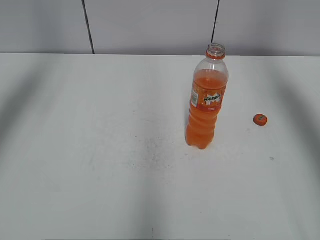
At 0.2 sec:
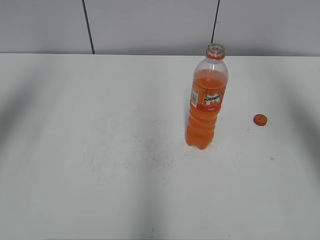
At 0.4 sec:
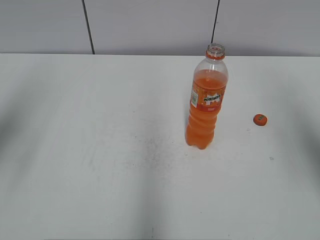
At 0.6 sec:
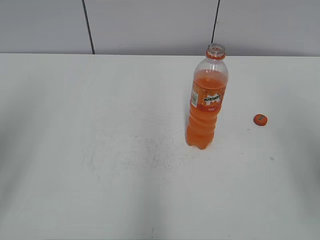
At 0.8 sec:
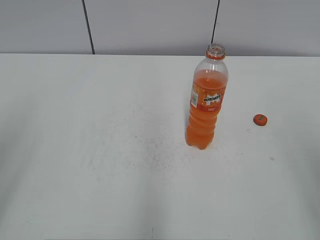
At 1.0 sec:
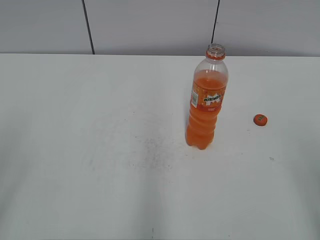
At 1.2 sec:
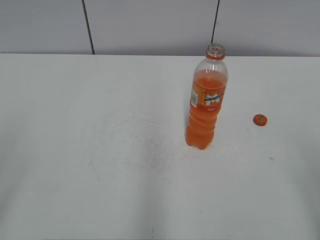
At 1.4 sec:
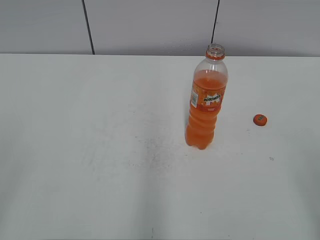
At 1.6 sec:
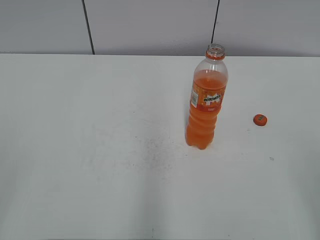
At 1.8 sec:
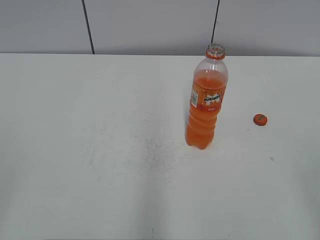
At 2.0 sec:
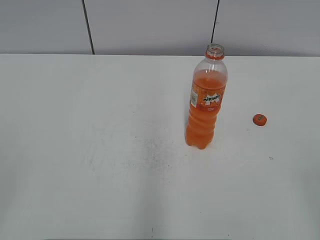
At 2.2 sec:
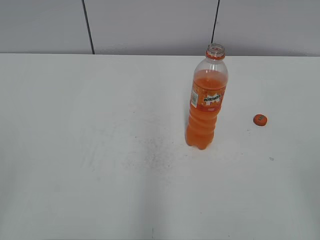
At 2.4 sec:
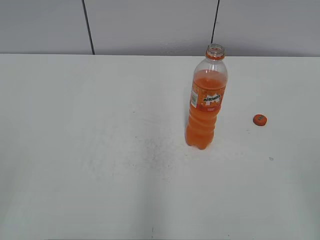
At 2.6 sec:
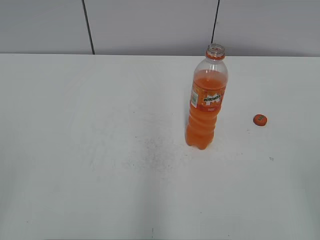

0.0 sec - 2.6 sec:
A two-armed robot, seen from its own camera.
0.0 sec - 1.2 sec: The left gripper is displaced backward by about 30 cm, while the right gripper goes approximately 35 cm backward and downward.

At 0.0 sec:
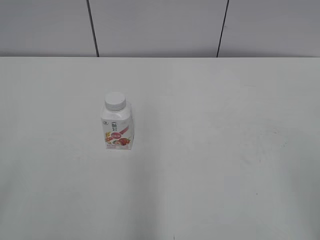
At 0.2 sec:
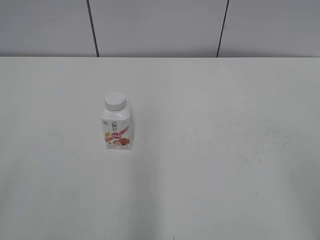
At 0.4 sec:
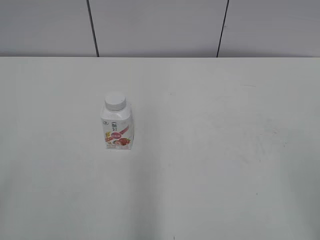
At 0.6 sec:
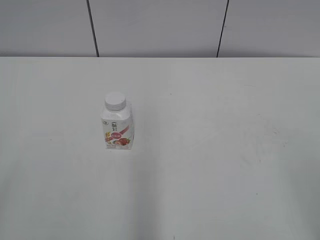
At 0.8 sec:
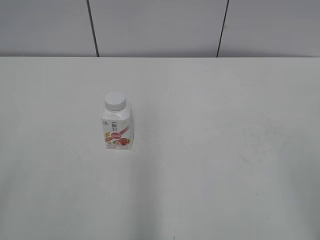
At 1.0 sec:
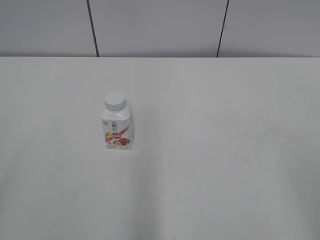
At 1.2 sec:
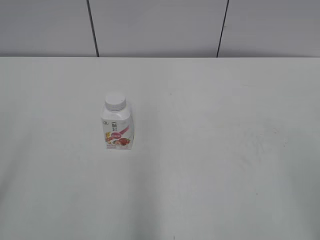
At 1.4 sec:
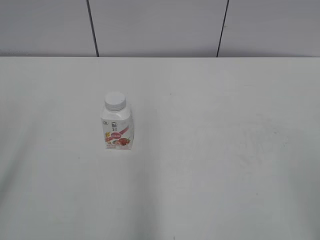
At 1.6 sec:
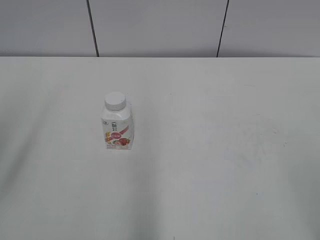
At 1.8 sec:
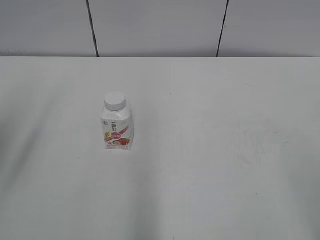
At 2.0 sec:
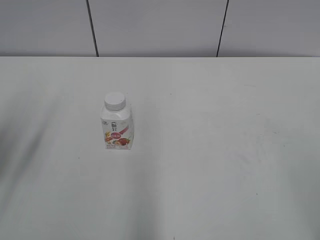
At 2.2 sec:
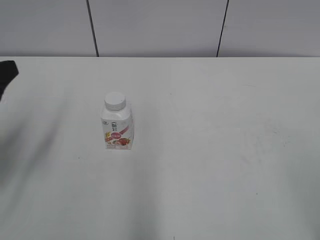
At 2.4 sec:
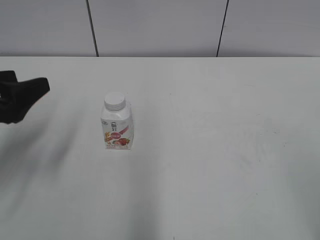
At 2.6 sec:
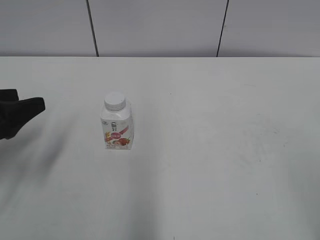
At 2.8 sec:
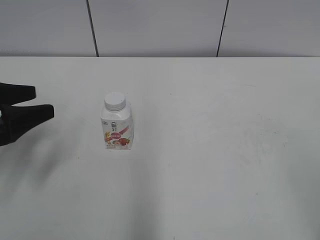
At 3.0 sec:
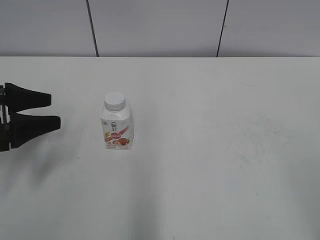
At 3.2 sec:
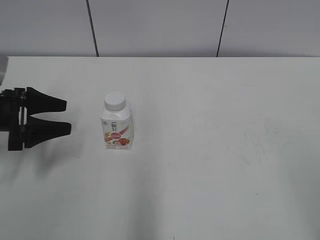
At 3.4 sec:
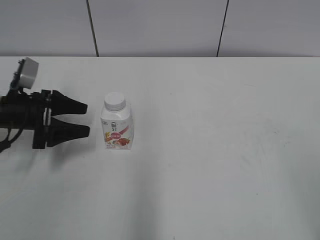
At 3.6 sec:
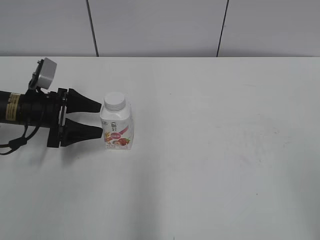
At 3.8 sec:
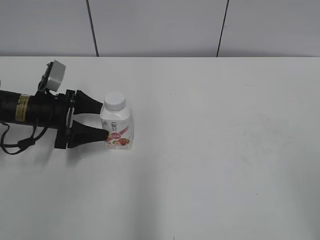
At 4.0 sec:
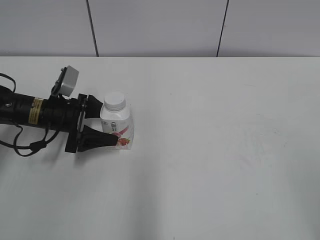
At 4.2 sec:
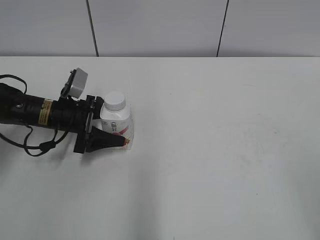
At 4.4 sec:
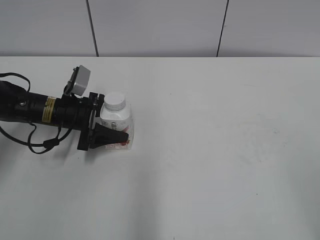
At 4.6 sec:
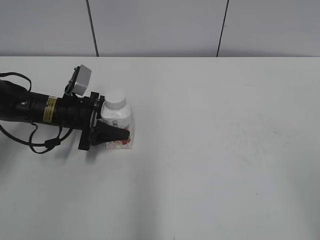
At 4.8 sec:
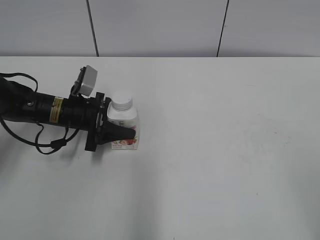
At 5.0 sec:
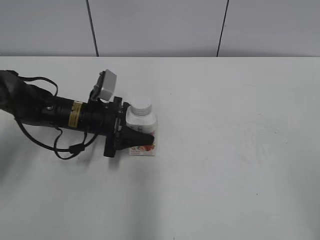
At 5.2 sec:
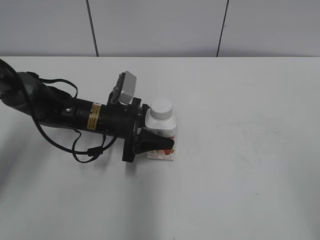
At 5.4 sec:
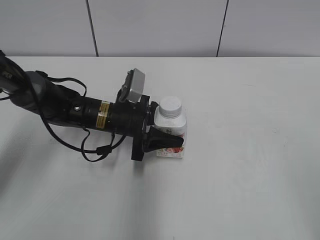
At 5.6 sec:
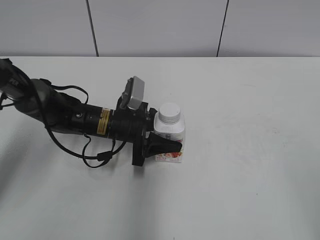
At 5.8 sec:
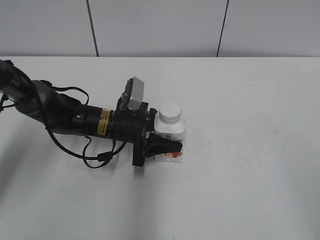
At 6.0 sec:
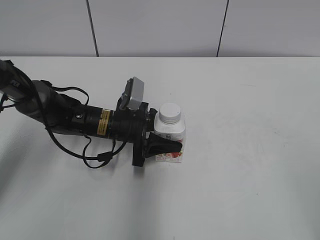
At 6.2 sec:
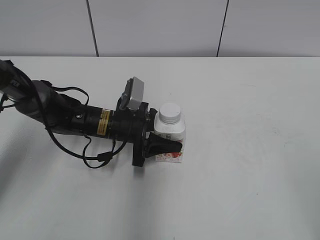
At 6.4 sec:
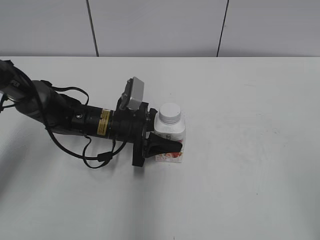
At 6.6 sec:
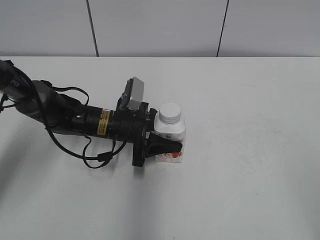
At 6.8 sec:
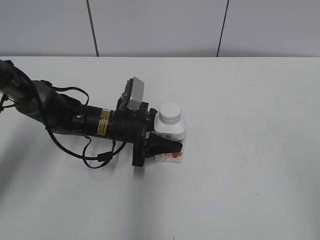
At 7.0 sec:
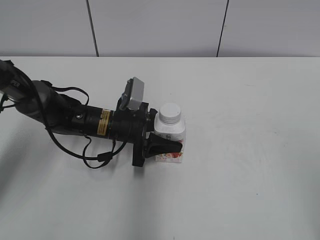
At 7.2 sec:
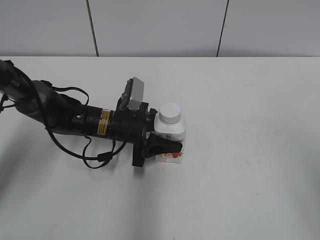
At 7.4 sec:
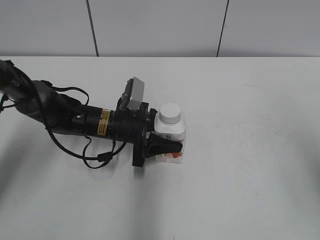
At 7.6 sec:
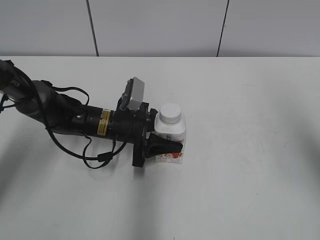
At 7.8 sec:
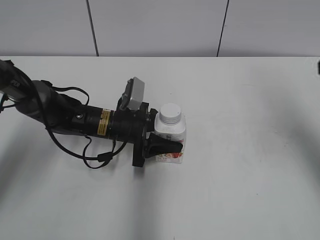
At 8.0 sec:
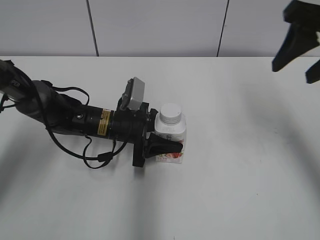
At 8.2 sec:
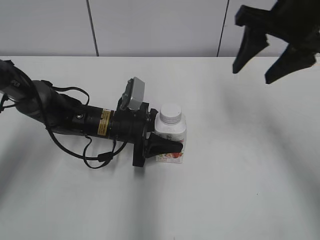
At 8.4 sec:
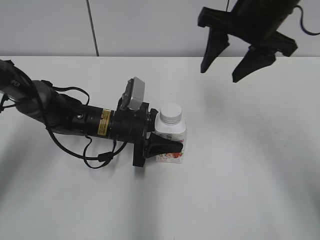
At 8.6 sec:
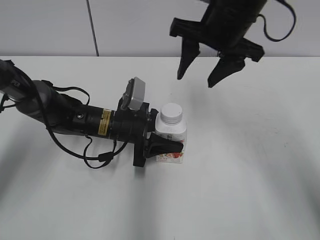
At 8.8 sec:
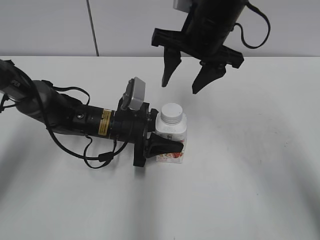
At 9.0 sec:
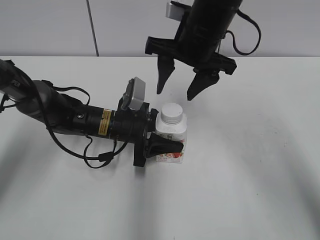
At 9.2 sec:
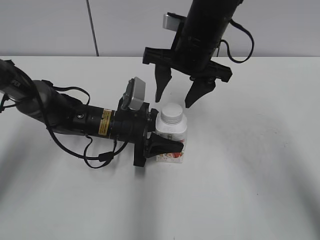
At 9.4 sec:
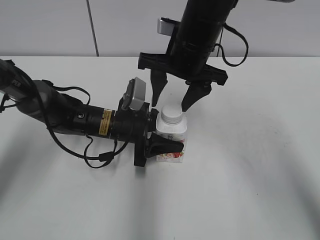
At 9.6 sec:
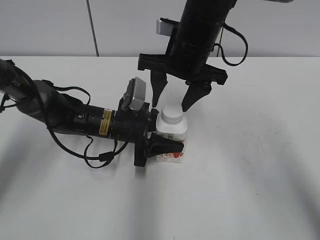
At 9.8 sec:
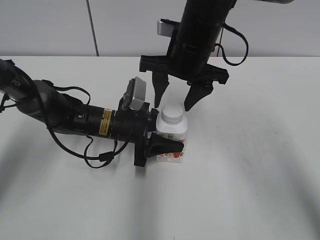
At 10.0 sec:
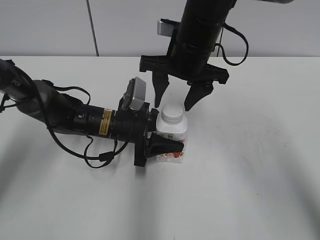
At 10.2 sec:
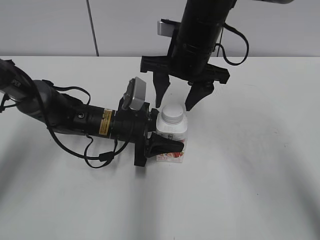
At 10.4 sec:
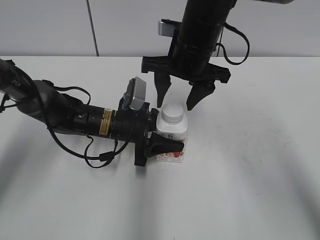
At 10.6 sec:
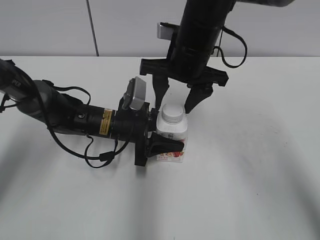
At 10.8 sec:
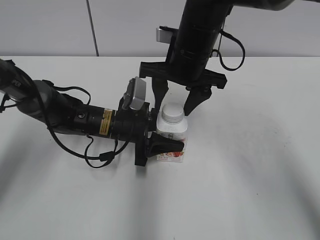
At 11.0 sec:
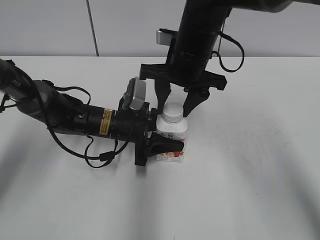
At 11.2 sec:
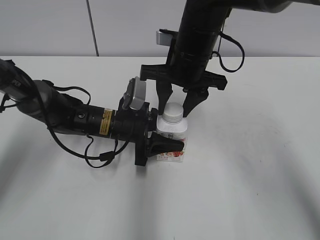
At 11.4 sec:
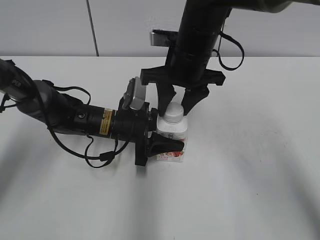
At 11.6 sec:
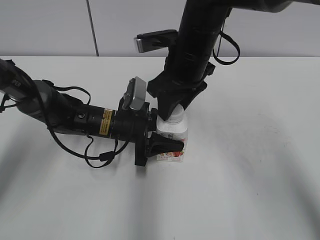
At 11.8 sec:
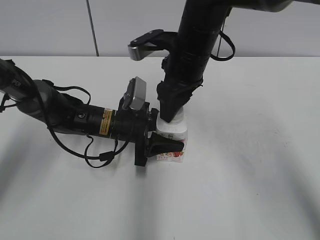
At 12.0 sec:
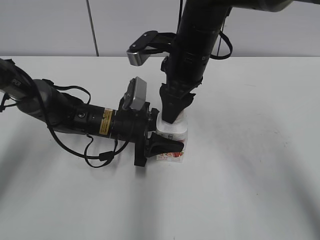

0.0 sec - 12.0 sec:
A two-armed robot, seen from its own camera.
Step, 0.0 sec - 4.6 sec: Grab the Yili Changqing with the left hand.
Step, 4.8 sec - 6.6 sec: Move the Yili Changqing from left to right.
1.6 sec - 3.0 sec: The left gripper is displaced downward and forward by some 25 cm.
3.0 sec - 4.4 sec: The left gripper shifts about 20 cm forward, downward and to the right.
4.4 sec - 6.0 sec: The left gripper travels to the right by approximately 10 cm, and closes.
6.0 sec - 7.6 sec: The right gripper goes some 20 cm forward.
7.6 sec - 9.0 sec: The right gripper heads to the left, forward and downward, covering approximately 30 cm.
9.0 sec - 10.4 sec: The grippers make only small movements.
10.4 sec - 12.0 sec: The right gripper closes its fingers.

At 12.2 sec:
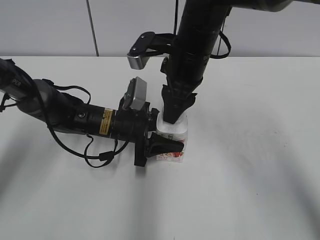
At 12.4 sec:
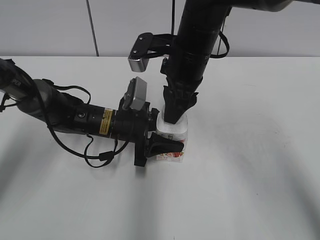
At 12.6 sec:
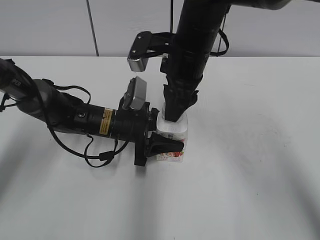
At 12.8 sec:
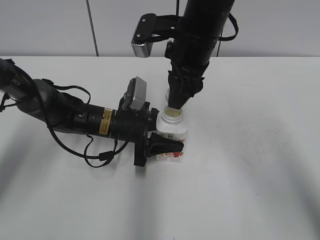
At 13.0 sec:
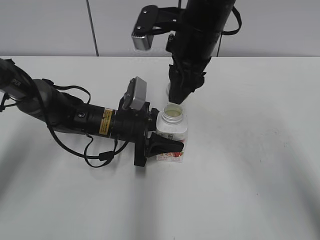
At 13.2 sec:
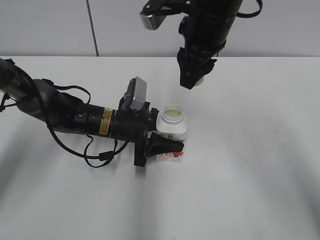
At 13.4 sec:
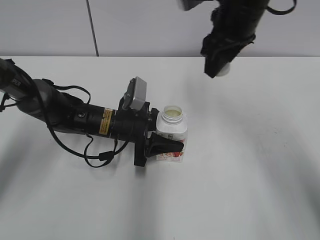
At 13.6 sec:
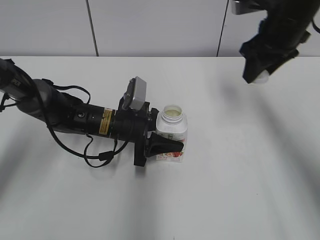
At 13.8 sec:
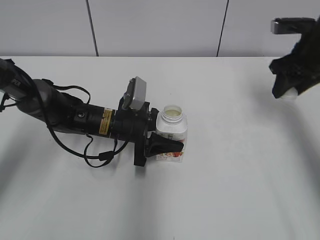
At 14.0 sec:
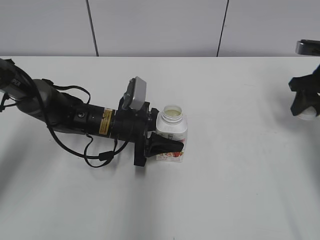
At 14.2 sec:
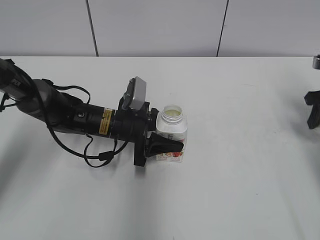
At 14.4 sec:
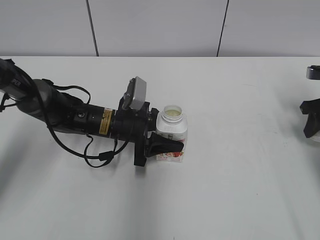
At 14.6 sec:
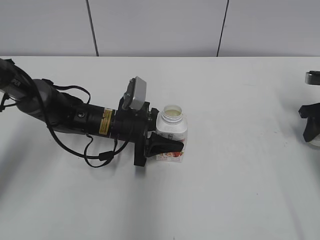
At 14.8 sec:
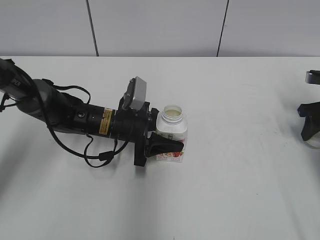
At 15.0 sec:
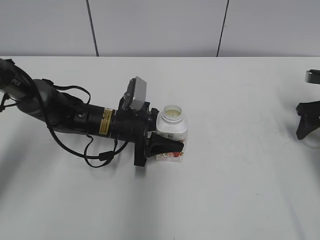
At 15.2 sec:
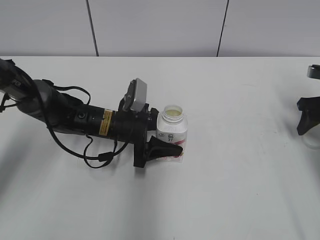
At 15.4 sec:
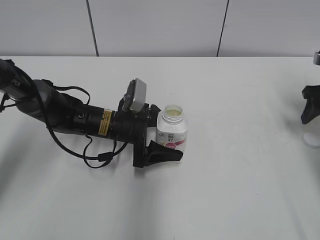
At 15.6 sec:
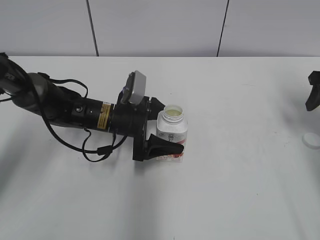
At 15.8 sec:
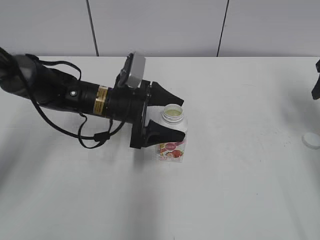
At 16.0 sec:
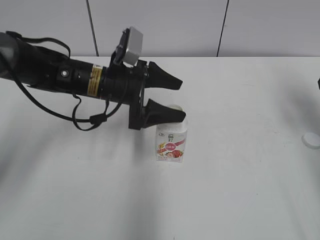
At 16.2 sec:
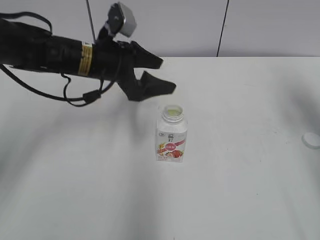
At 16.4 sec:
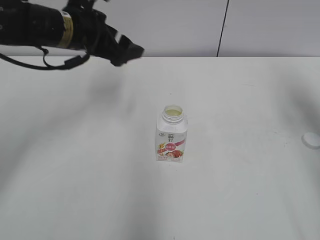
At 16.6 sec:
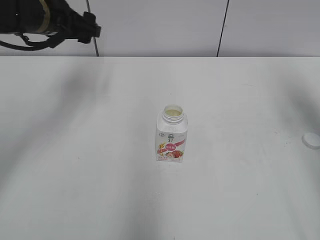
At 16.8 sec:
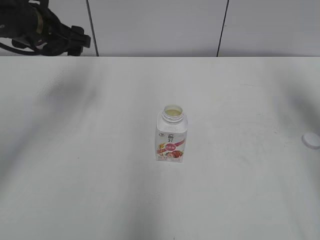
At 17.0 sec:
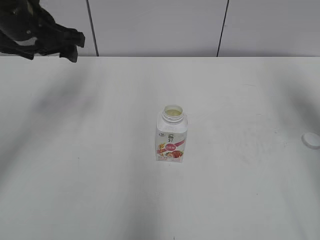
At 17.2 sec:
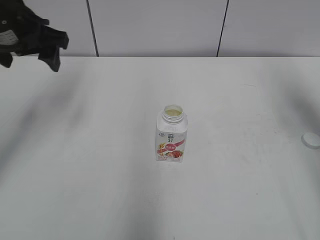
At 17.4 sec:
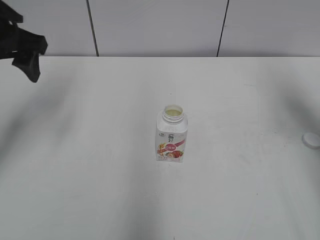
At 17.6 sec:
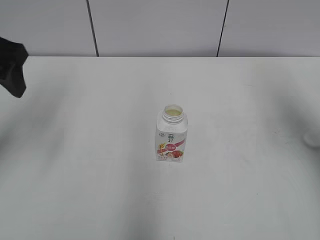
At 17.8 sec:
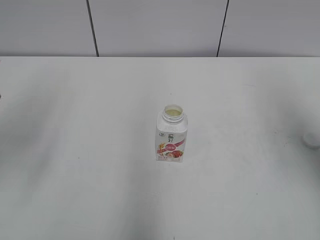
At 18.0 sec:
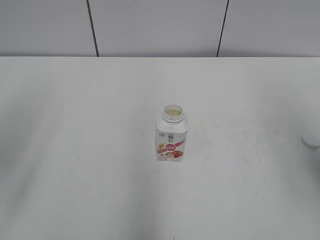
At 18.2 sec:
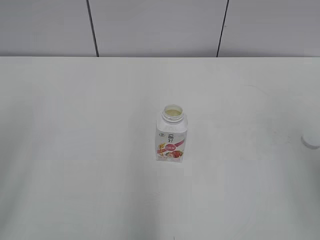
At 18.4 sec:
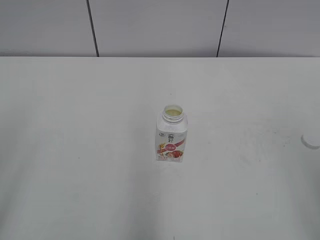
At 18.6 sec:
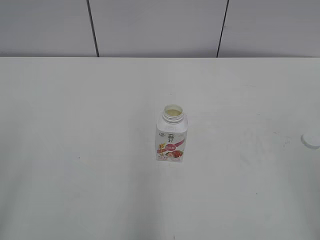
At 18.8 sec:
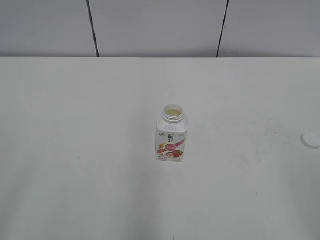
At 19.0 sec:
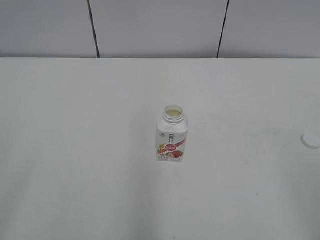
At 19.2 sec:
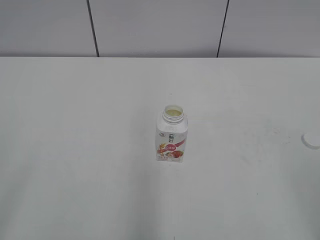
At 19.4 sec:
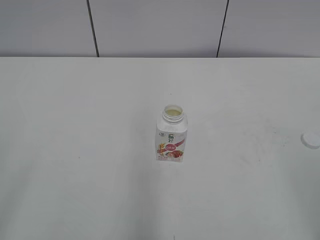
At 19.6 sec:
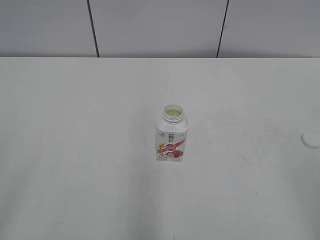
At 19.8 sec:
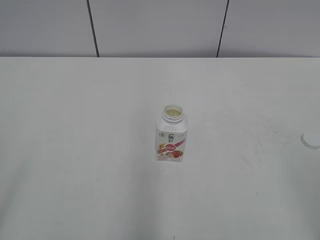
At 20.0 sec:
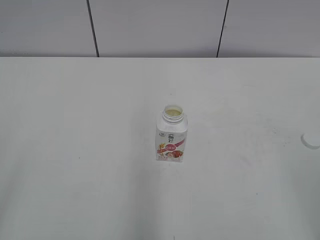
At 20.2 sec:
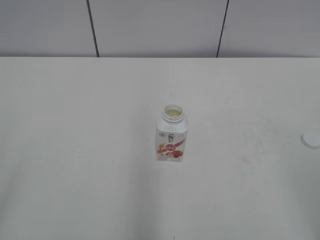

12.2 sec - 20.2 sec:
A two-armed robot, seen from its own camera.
Step, 12.8 sec - 15.0 sec: Place the bottle cap on the right.
12.2 sec - 13.8 sec: The right gripper shifts approximately 20 cm to the right.
13.8 sec - 15.4 sec: The left gripper opens. Meanwhile the right gripper travels to the right and downward by some 15 cm, and opens.
15.4 sec - 17.0 sec: The right gripper heads upward, covering approximately 15 cm; the left gripper is displaced upward and to the left by approximately 25 cm.
17.0 sec - 18.6 sec: Both grippers move backward, roughly 35 cm.
